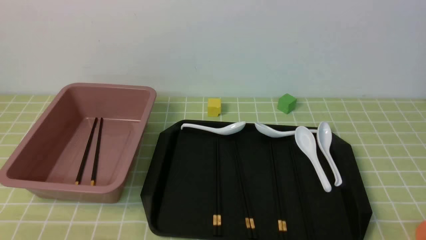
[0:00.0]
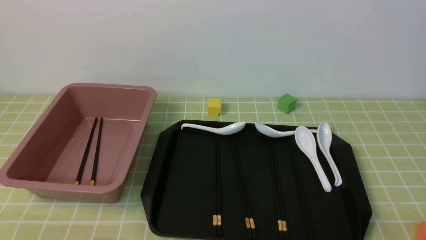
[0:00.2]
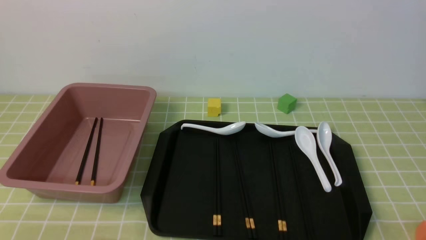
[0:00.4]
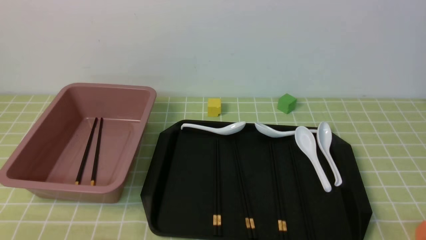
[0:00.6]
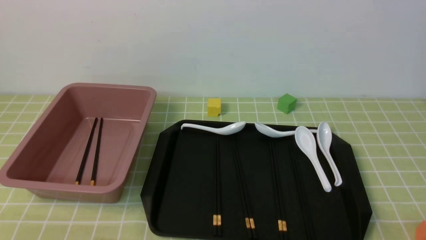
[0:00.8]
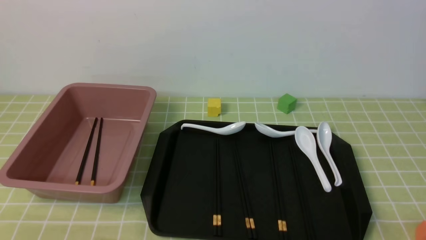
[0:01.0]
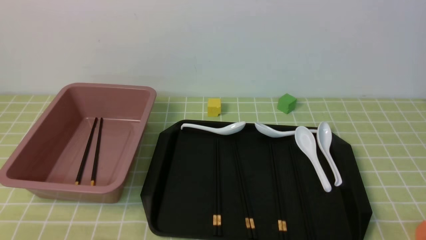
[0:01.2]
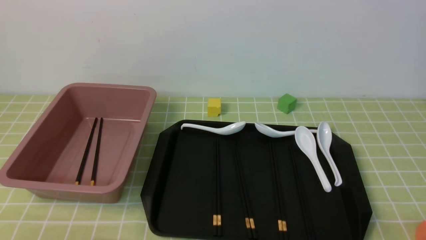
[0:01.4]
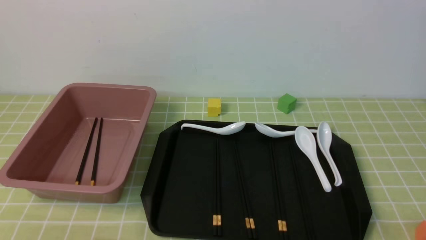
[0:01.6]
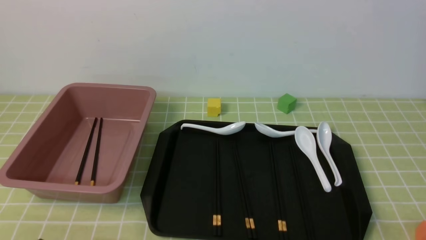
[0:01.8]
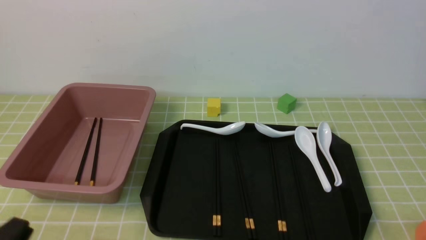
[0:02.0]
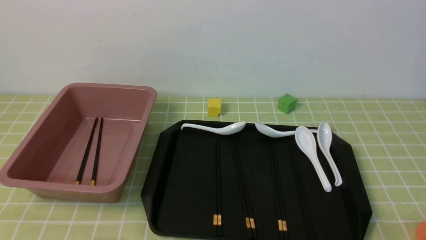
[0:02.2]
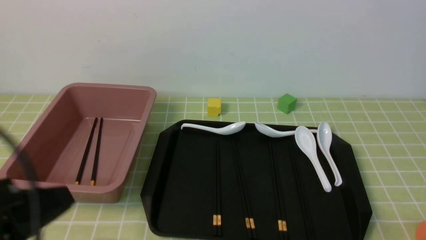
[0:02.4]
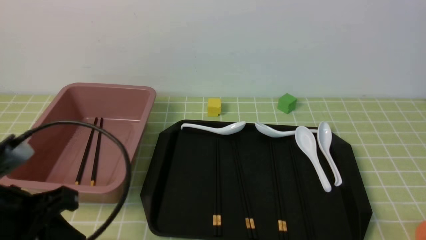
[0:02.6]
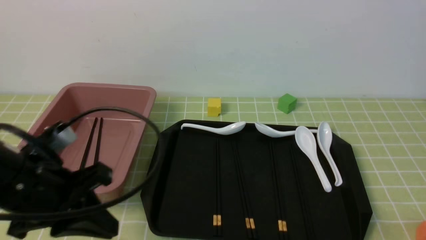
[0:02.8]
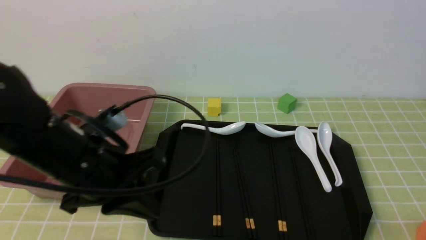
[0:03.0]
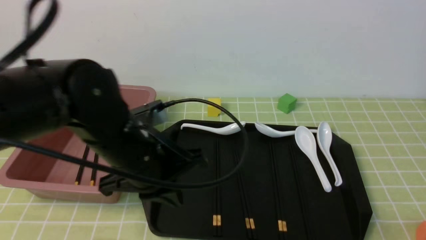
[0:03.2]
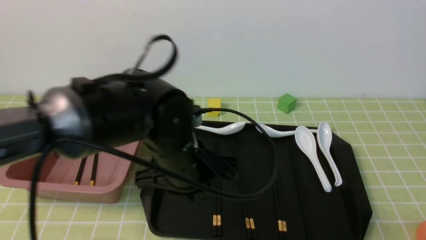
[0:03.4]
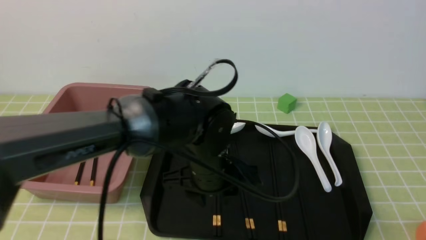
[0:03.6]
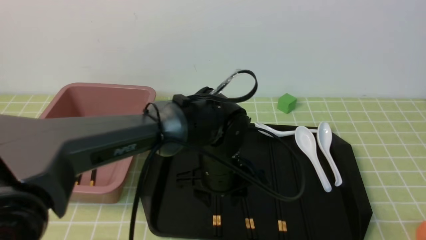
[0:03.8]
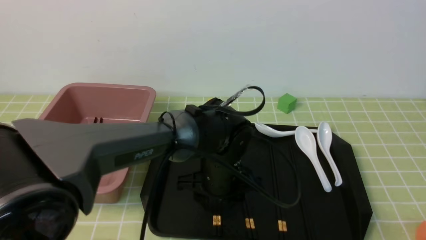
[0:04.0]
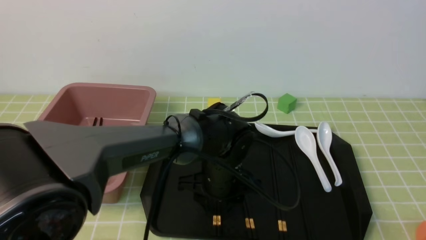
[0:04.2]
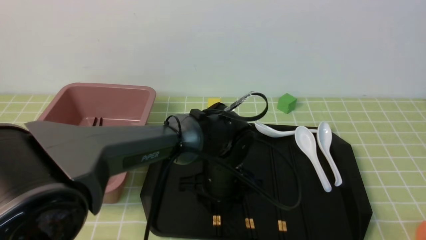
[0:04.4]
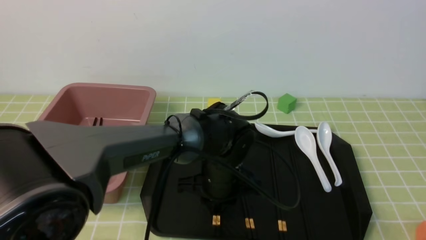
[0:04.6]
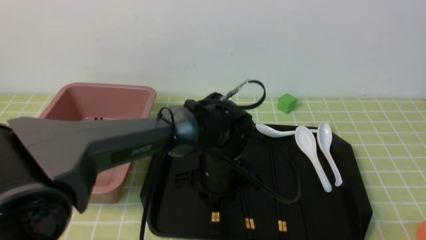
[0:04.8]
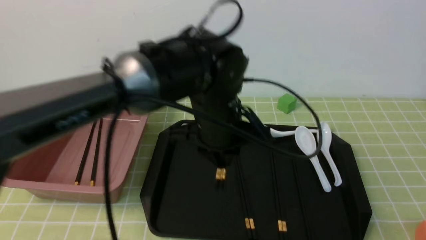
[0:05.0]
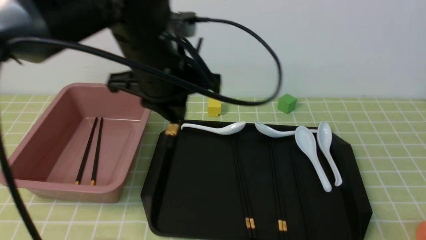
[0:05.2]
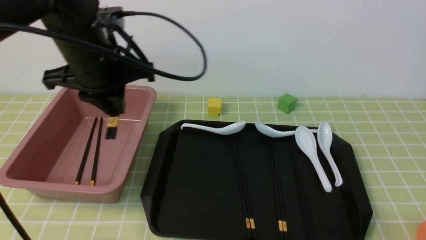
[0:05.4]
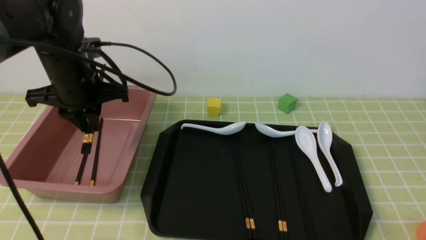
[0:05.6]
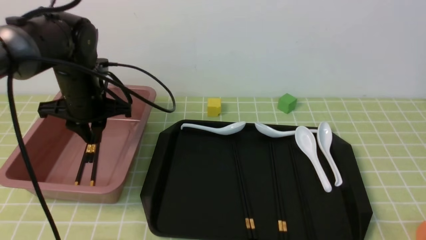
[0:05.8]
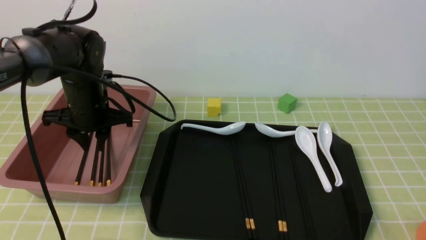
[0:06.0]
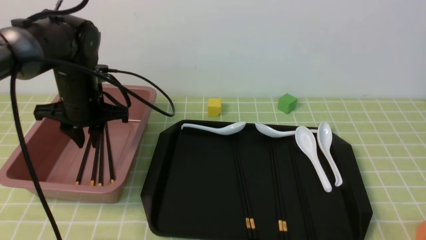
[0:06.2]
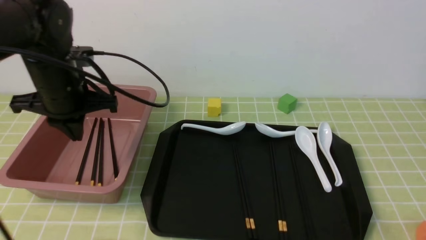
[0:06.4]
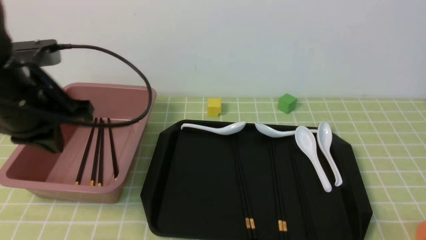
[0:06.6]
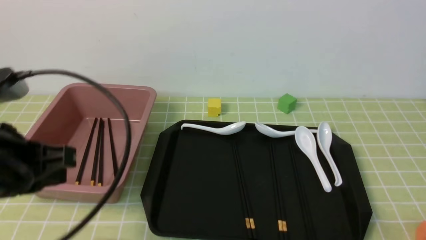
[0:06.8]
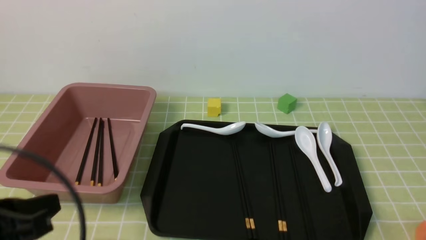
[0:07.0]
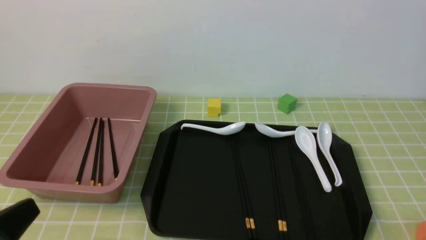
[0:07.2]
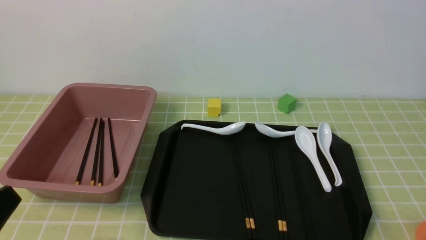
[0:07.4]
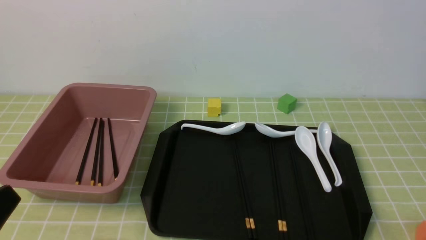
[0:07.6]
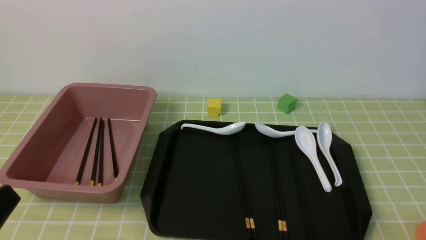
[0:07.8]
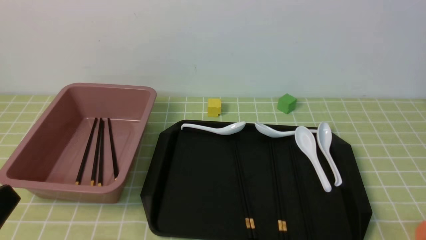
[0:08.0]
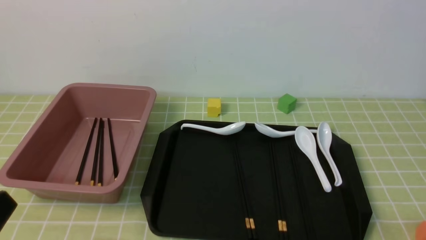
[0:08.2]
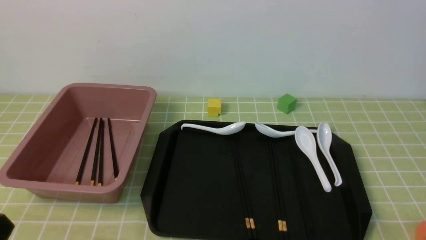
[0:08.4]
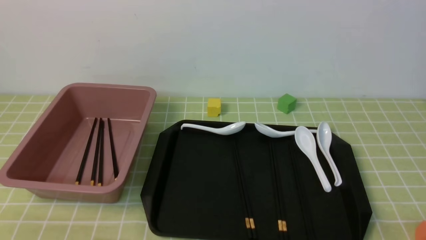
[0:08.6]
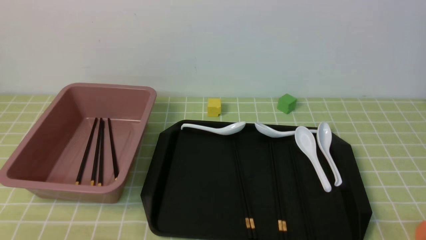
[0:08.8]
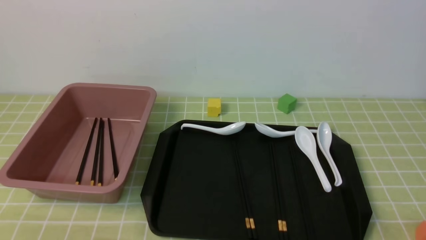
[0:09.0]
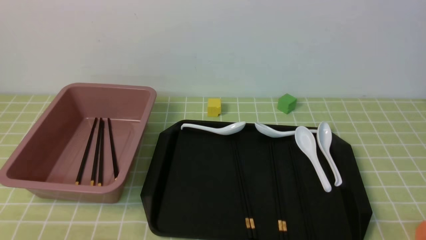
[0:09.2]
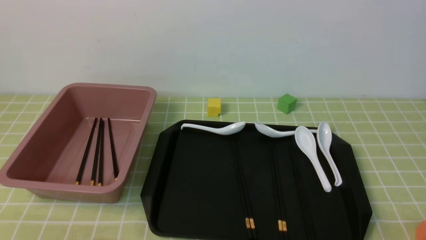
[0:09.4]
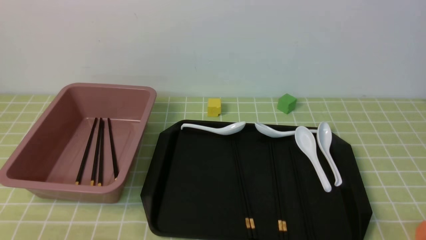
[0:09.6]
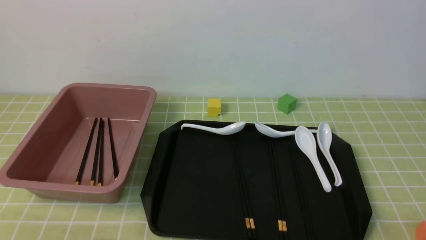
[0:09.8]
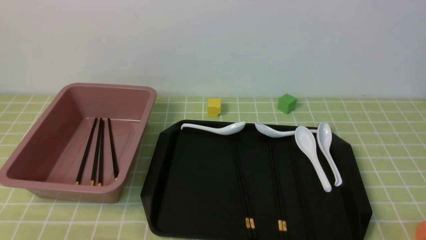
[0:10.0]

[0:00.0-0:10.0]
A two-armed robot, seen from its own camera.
Step, 0:00.0 to 0:04.8: use the left arm to grab a pair of chopsticks.
Step, 0:05.0 to 0:06.2: use the left arm to put the chopsticks into the lunch box.
0:01.4 to 0:02.8: The left gripper moves forward and upward, approximately 15 cm.
0:02.8 to 0:04.2: The left gripper heads to the right, forward and downward, covering roughly 30 cm, and opens up.
0:04.2 to 0:05.8: The left gripper is displaced to the left and upward by about 25 cm, and closes.
0:05.8 to 0:07.2: The left gripper heads backward, covering about 30 cm, and closes.
0:07.2 to 0:08.6: The left gripper shifts some 5 cm downward.

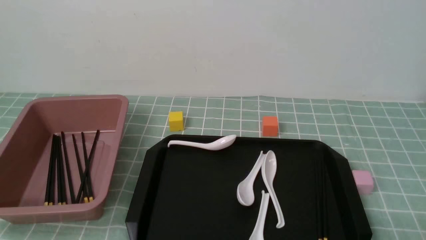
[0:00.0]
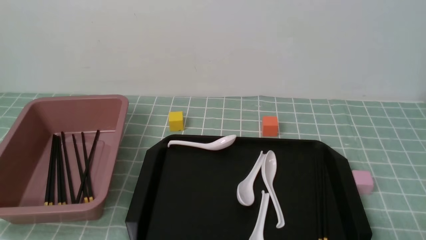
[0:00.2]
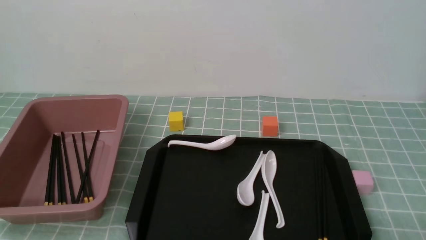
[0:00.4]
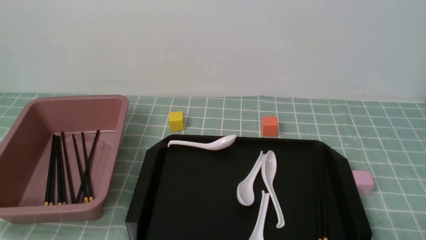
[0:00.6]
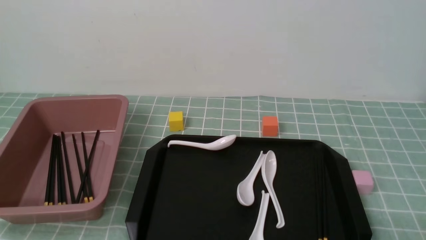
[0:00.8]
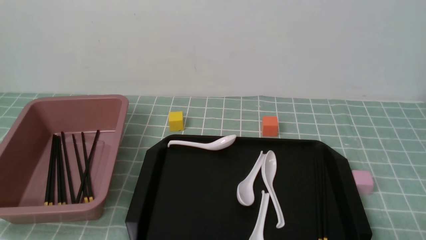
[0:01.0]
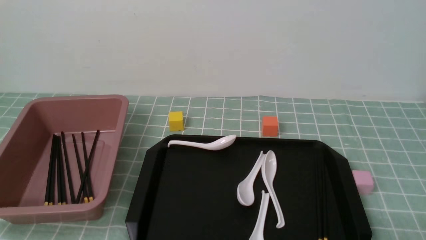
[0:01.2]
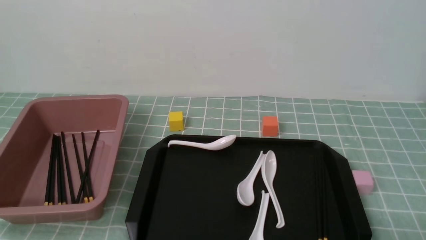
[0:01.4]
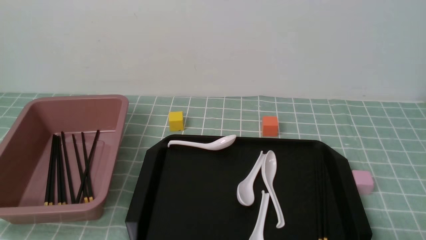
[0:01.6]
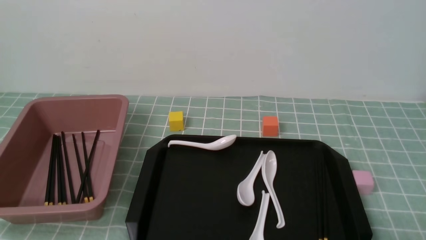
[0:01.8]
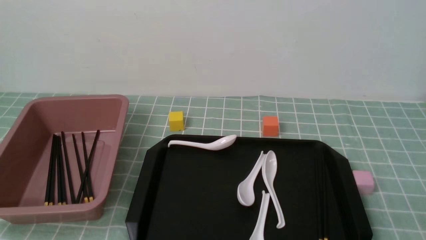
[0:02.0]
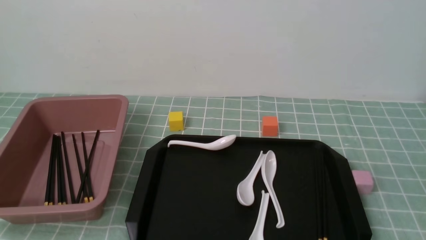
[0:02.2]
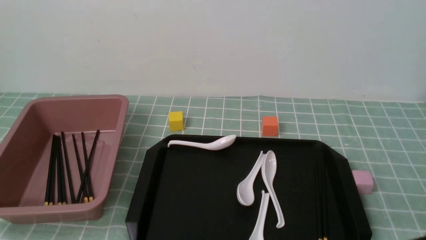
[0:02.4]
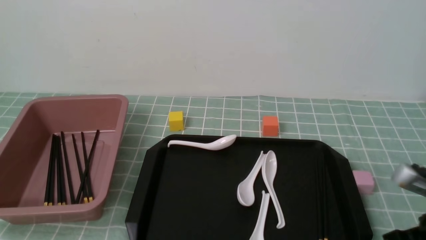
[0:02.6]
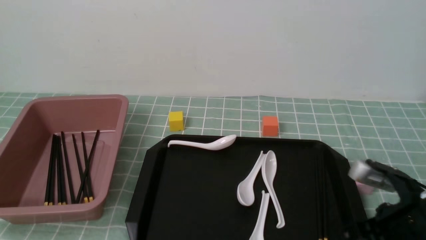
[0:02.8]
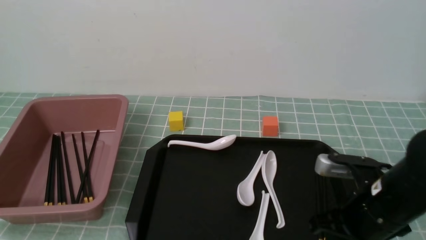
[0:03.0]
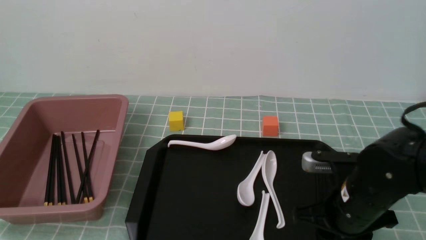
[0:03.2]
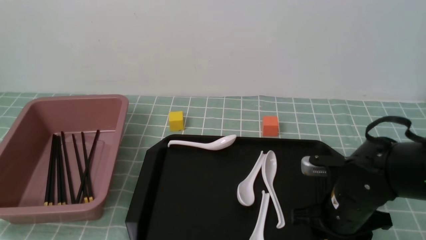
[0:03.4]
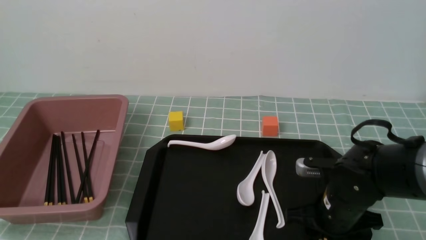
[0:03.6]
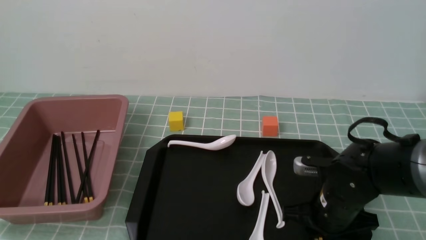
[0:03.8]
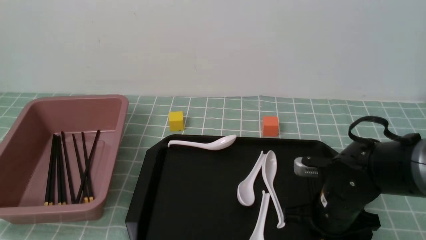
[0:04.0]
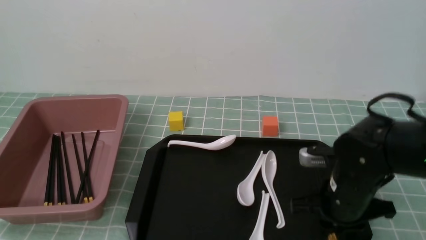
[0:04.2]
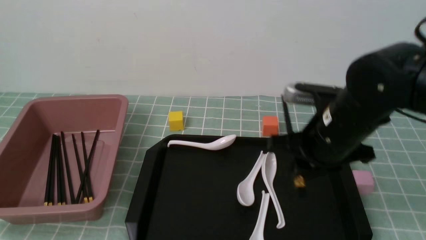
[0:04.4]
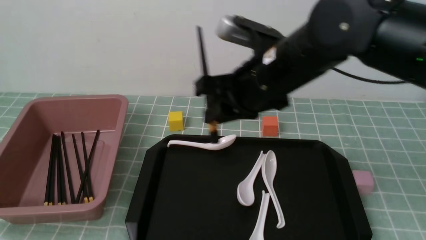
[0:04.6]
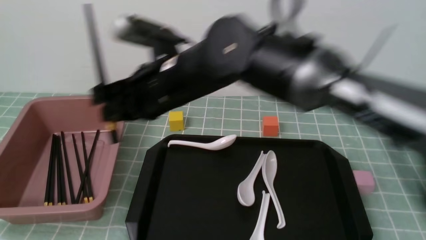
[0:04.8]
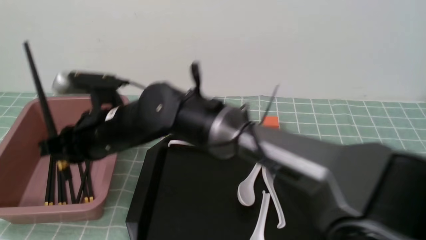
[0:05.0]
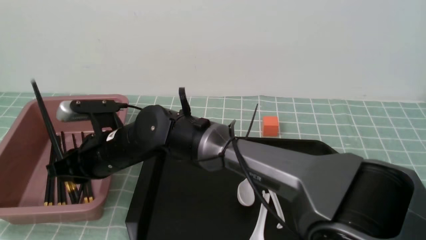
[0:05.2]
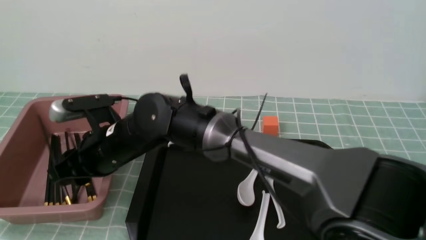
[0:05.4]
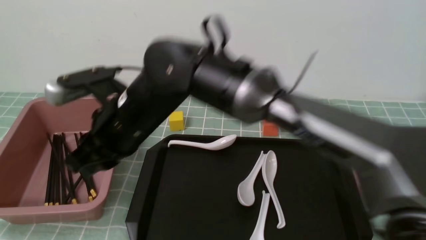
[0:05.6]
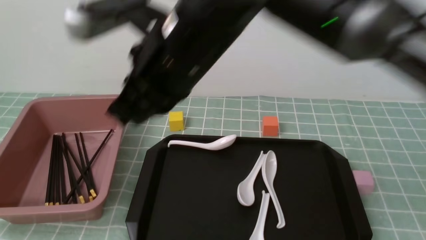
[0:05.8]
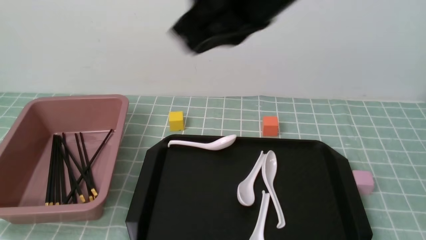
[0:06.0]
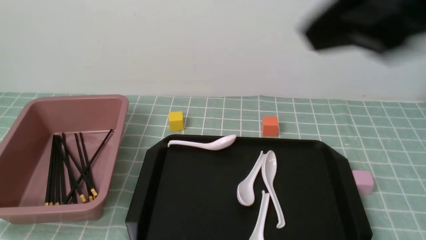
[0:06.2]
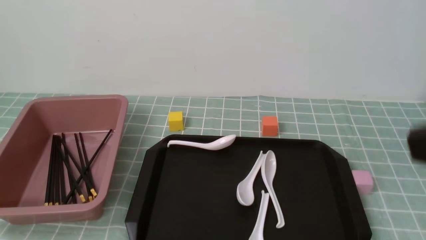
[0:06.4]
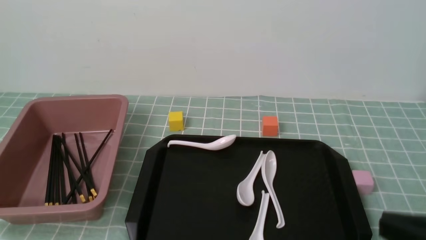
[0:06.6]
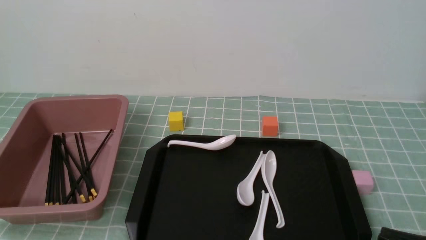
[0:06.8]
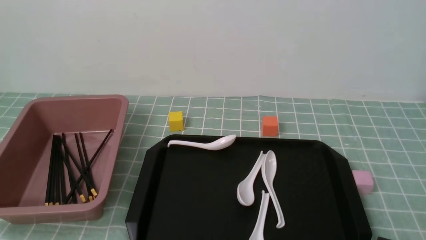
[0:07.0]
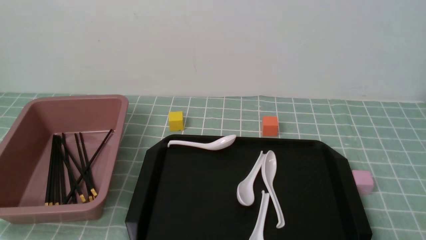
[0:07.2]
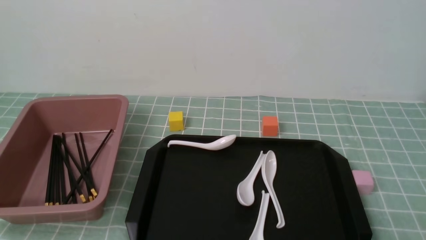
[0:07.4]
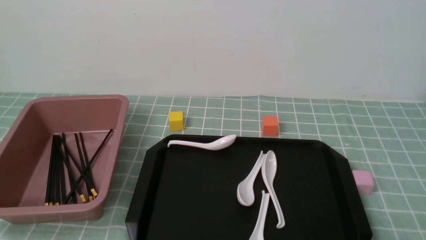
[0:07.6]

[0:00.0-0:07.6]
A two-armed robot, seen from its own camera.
Step, 0:00.0 to 0:04.2: use the right arm to grab a pair of chopsticks.
Step, 0:04.6 to 0:05.6: use the right arm to put the chopsticks into the lunch box.
0:01.6 to 0:03.0: The right gripper shifts about 20 cm forward and to the left.
0:03.0 to 0:04.6: The right gripper shifts about 25 cm to the left, upward and forward, and opens, then closes once more.
0:04.6 to 0:06.0: The right gripper shifts roughly 20 cm upward and backward, and closes up.
0:06.0 to 0:07.6: The right gripper shifts about 35 cm downward, to the right and backward.
